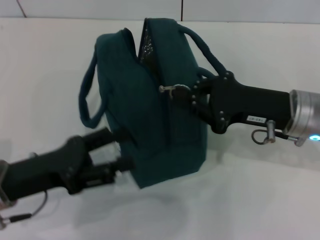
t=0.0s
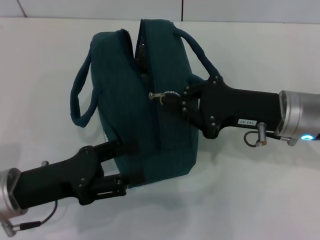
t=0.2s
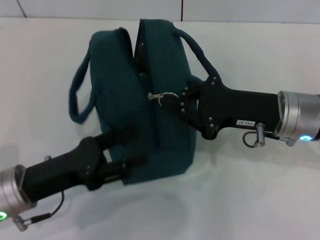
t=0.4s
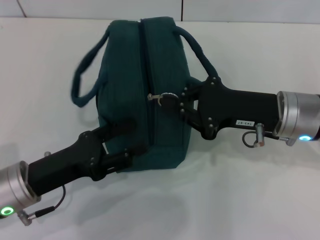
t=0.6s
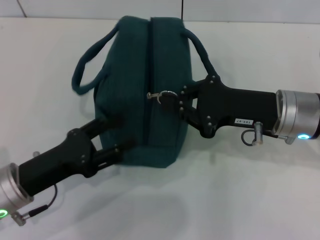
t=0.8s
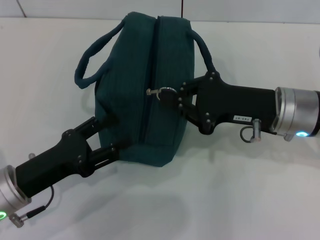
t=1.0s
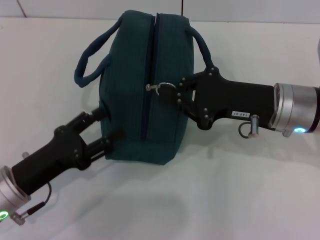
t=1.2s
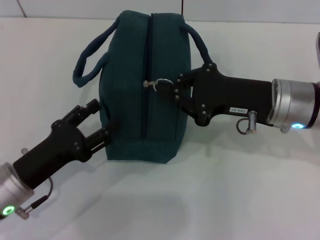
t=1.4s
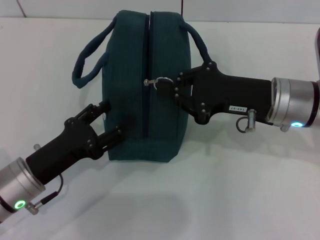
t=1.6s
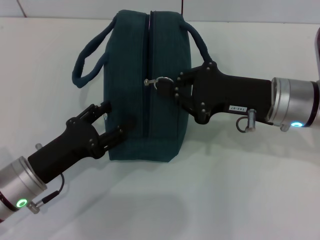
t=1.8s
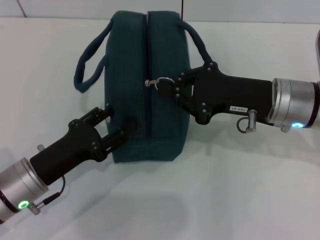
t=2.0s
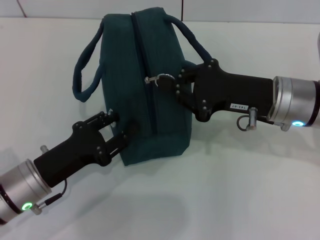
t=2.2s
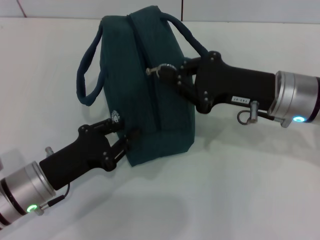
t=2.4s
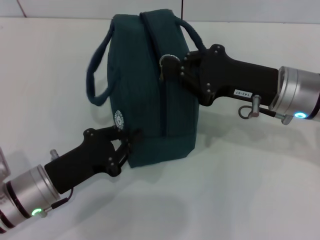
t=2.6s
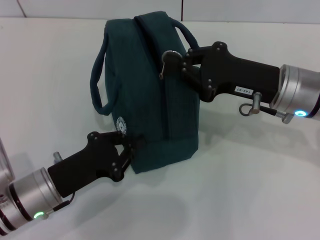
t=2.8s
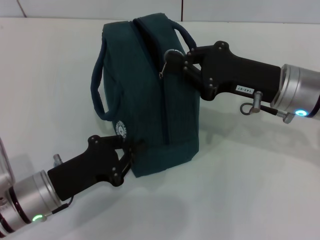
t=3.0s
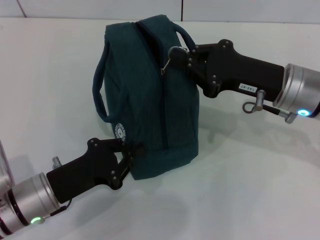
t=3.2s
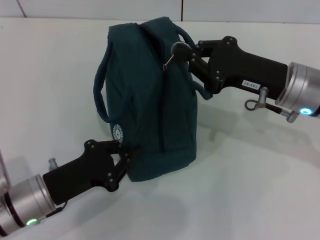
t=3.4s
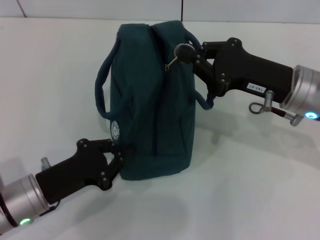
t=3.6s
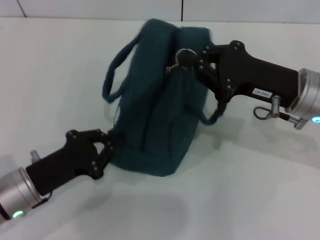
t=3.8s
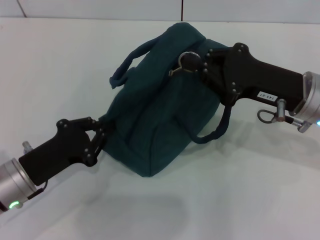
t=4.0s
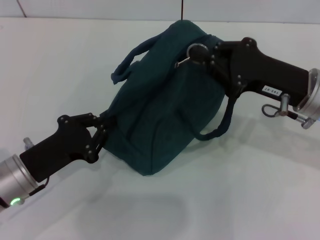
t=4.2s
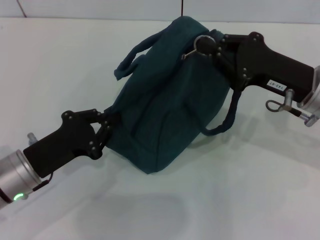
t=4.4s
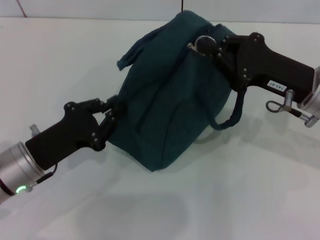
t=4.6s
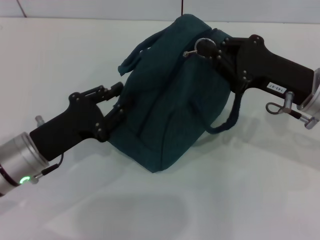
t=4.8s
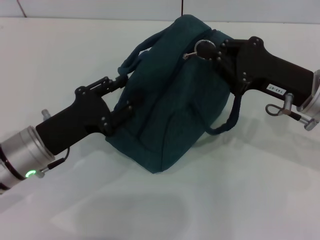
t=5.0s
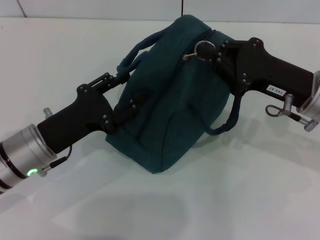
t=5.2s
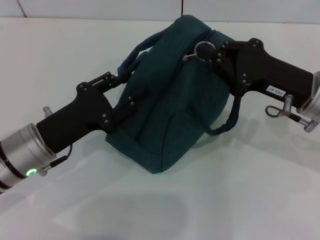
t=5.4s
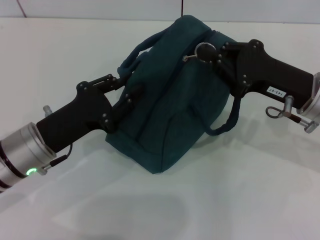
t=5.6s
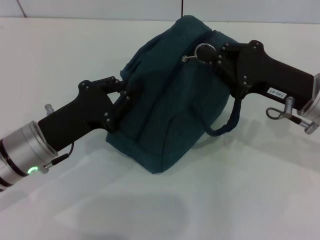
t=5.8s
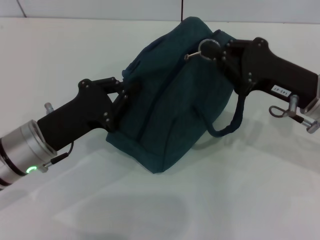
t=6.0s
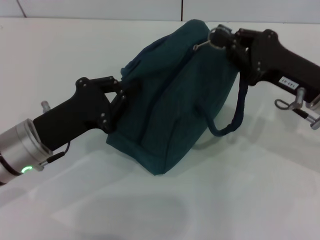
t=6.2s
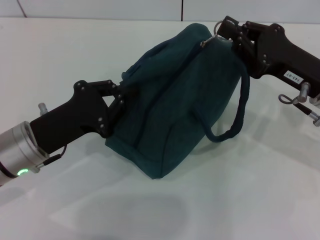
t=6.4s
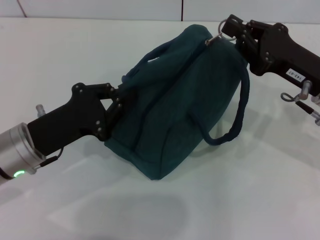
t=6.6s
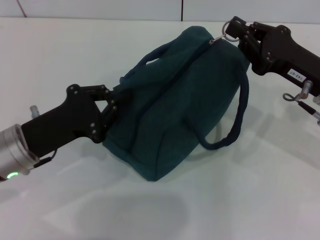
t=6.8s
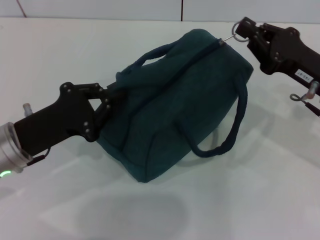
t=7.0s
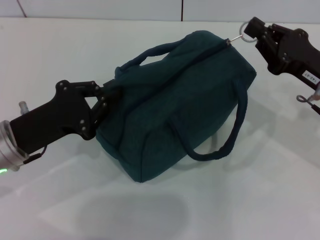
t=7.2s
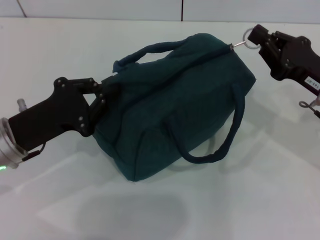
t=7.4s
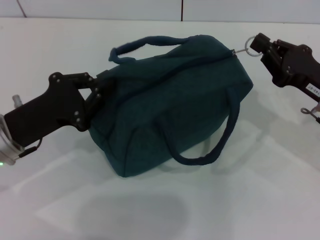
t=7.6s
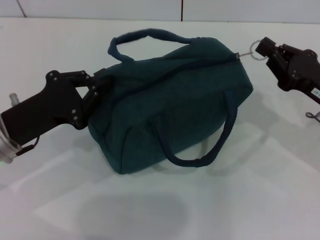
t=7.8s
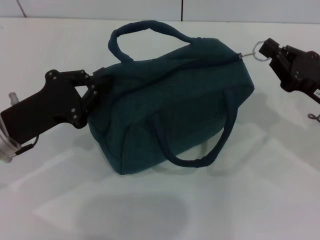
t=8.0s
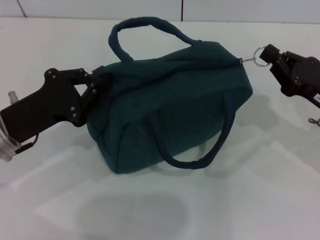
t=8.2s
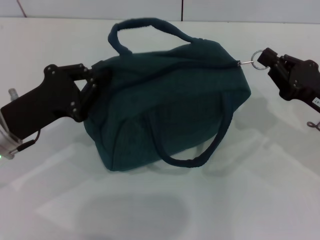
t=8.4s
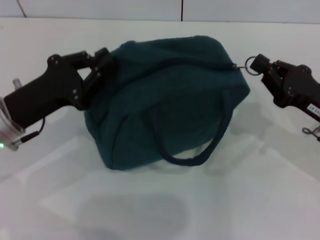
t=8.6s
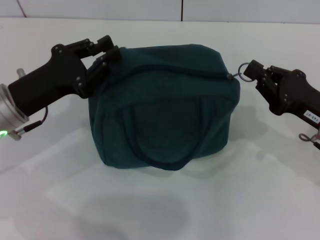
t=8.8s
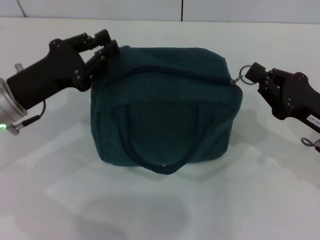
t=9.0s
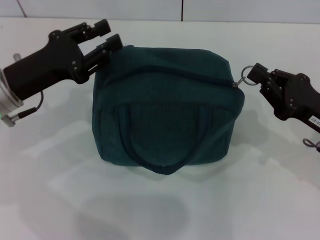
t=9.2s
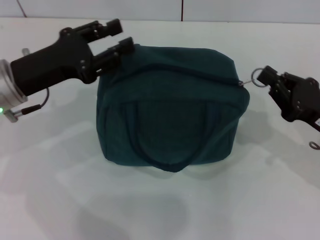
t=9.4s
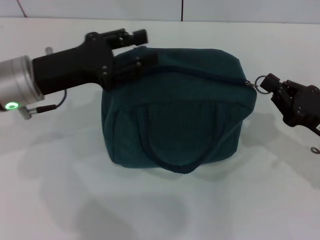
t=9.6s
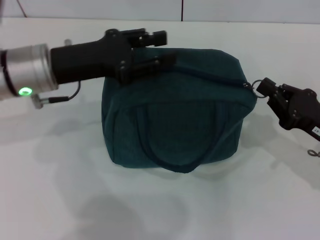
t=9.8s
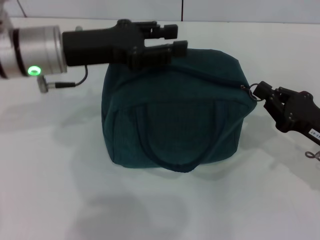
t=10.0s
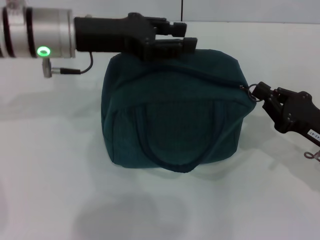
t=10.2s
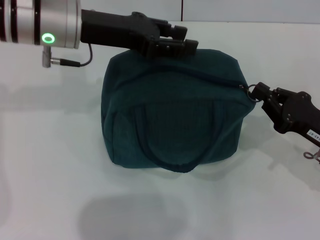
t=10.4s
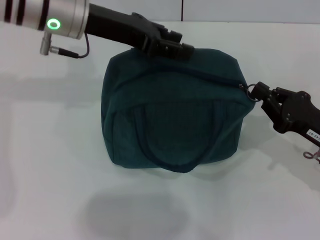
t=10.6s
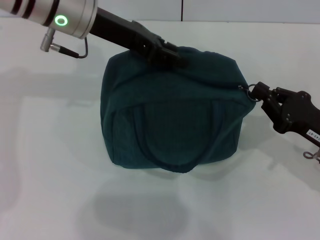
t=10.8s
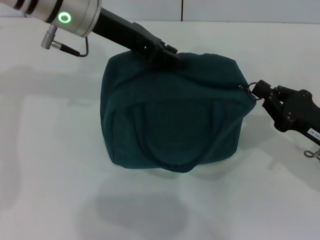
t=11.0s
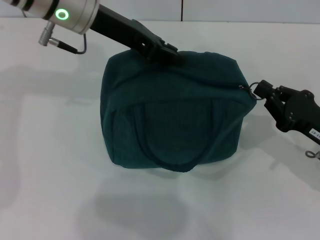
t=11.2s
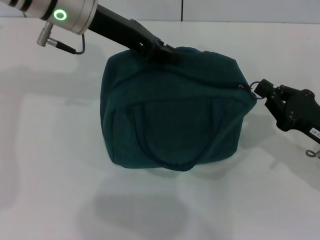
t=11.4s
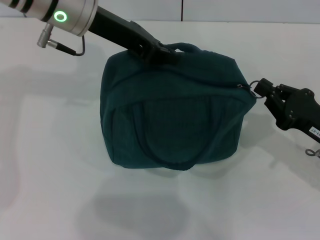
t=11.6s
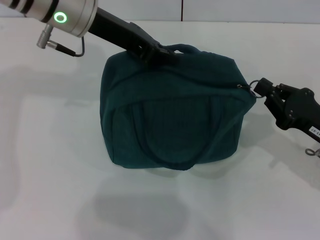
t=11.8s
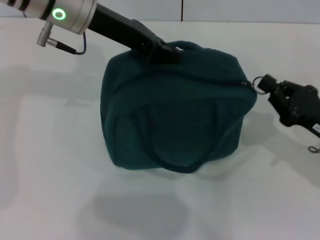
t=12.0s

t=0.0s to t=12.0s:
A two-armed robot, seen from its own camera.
t=0.0s to t=1.6s: The left gripper moves about 5 cm.
t=1.6s to t=3.0s: The left gripper closes up.
t=4.4s to t=6.0s: The left gripper opens and closes again.
t=6.0s to t=7.6s: The right gripper moves roughly 5 cm.
t=9.0s to t=10.4s: The left gripper travels upward, to the right and forward by some 15 cm.
t=10.4s to t=12.0s: The left gripper closes.

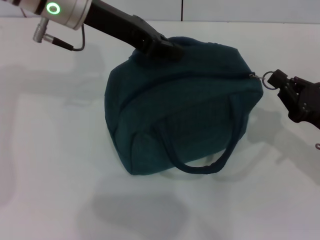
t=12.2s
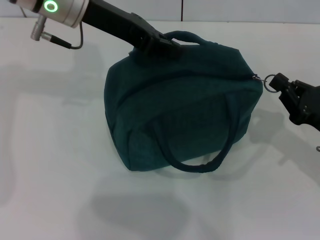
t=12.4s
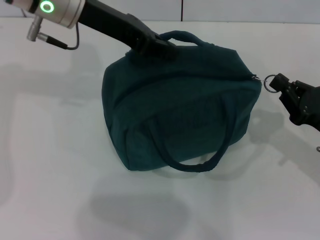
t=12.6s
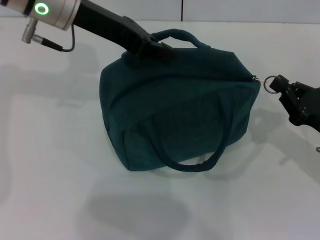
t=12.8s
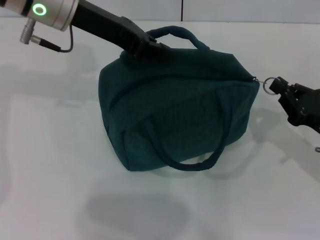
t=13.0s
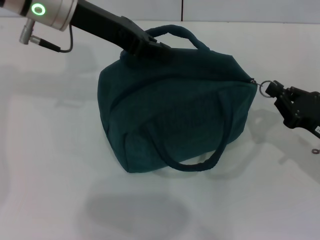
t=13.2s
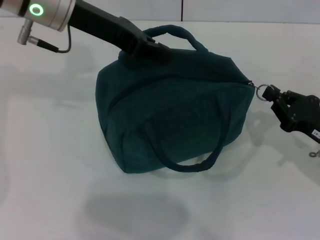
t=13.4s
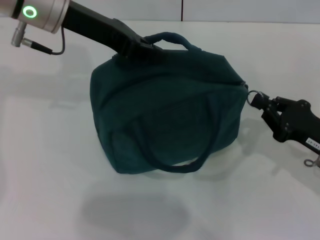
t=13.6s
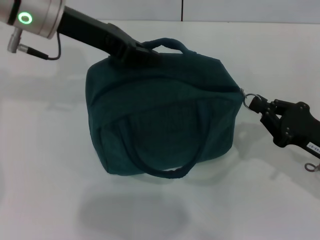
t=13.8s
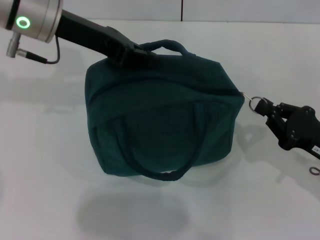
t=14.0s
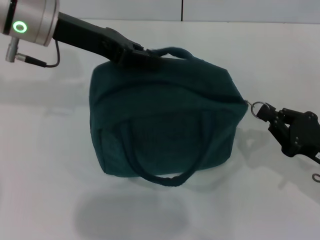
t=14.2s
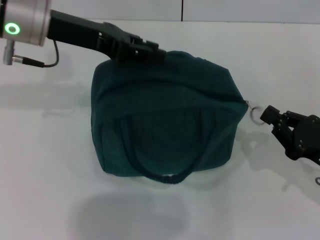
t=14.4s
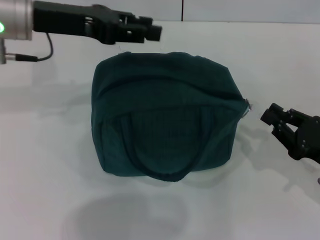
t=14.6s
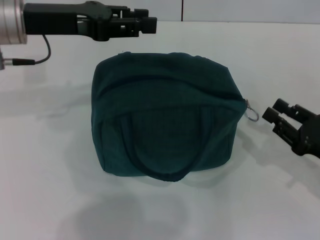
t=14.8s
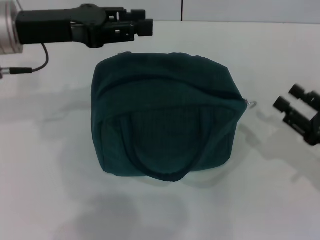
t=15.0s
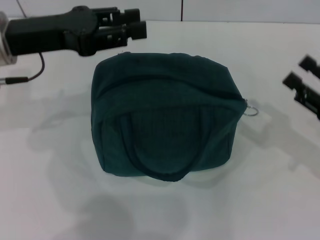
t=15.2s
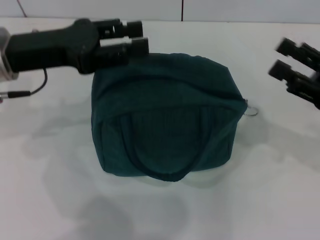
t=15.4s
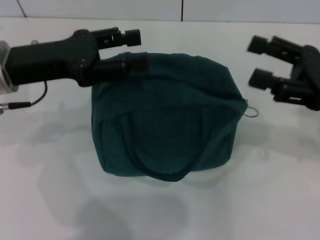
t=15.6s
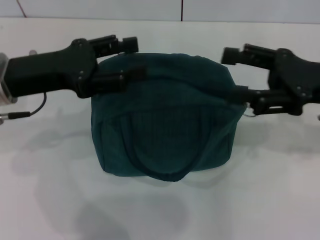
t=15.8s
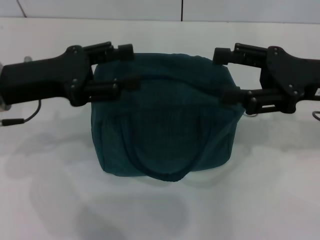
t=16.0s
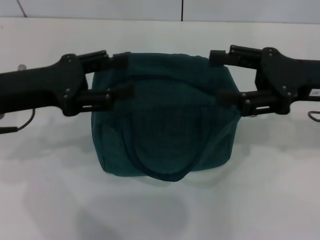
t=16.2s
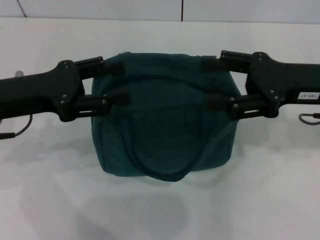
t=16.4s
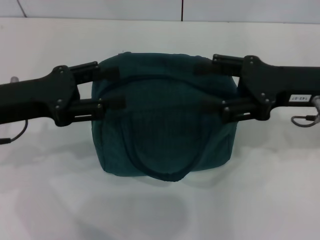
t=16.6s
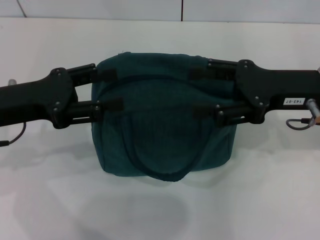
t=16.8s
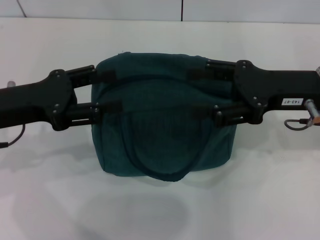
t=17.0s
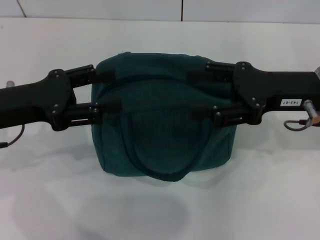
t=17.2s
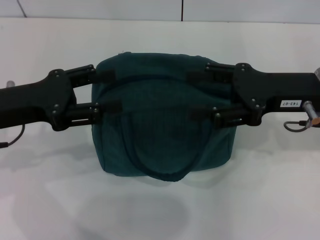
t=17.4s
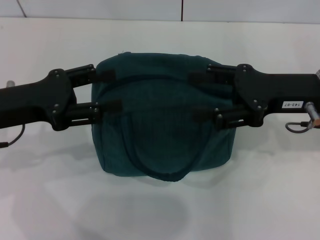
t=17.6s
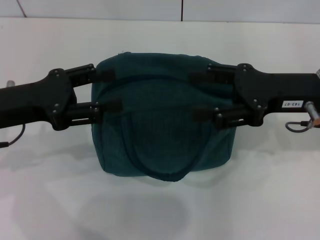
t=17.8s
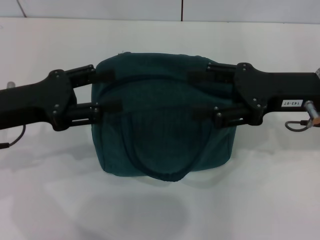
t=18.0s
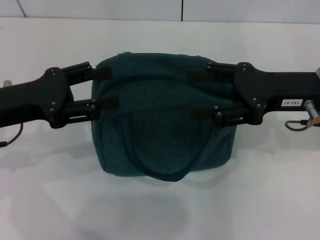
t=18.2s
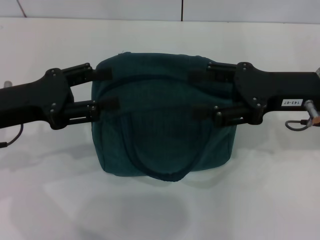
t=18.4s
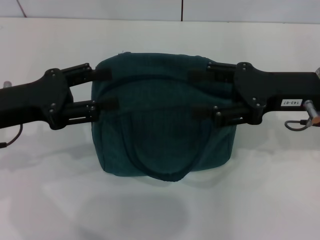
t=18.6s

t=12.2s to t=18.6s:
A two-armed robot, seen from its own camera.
Step, t=12.2s to t=14.4s: Hold the lunch bag with your left hand.
t=13.8s to t=15.4s: The left gripper goes about 10 cm backward and to the left, and opens its fingers. Meanwhile the right gripper travels upward by approximately 5 cm, and opens up.
t=15.4s to t=17.0s: The right gripper goes approximately 10 cm to the left. The left gripper heads backward, covering roughly 5 cm.
t=17.0s to t=18.6s: Both grippers stay put.
